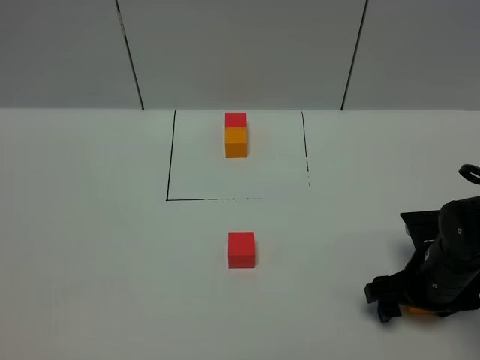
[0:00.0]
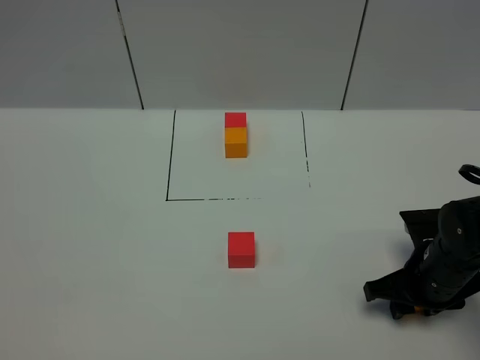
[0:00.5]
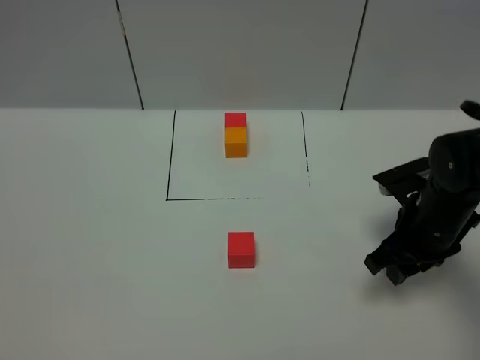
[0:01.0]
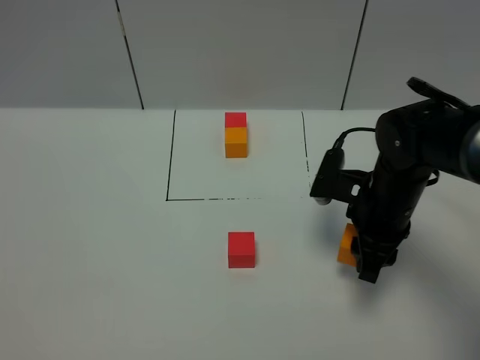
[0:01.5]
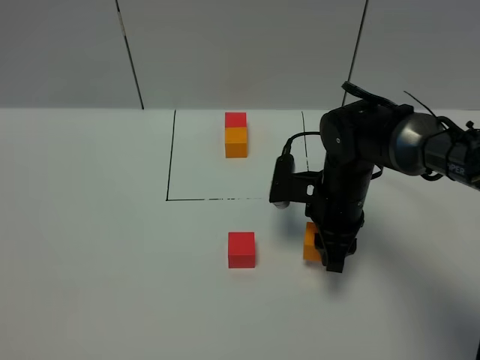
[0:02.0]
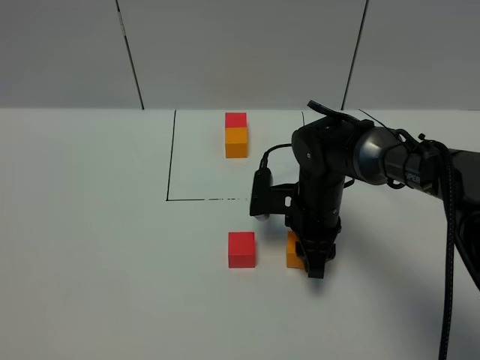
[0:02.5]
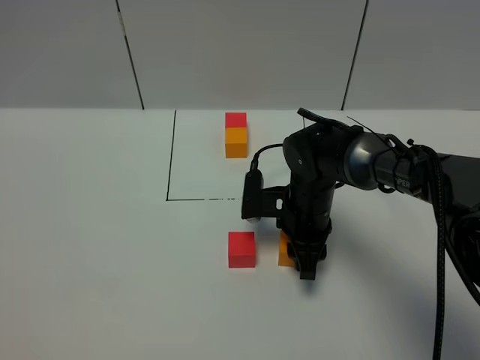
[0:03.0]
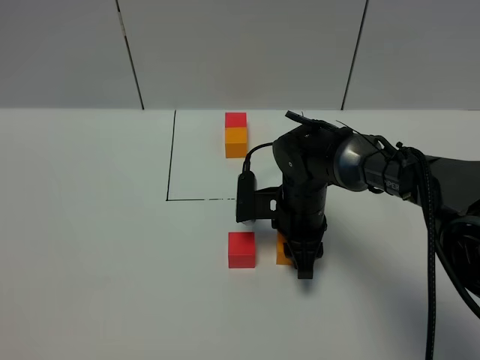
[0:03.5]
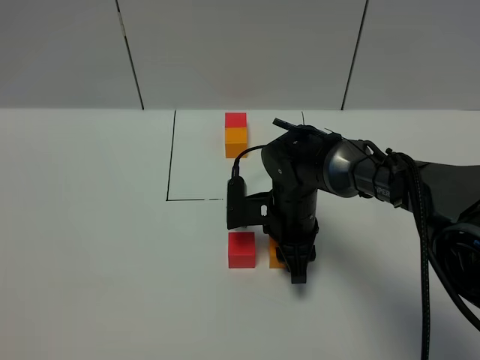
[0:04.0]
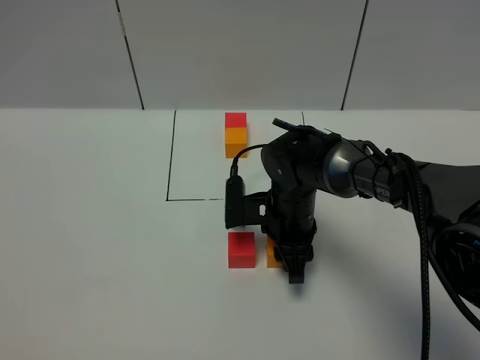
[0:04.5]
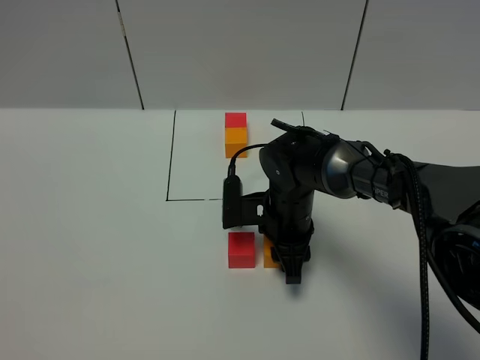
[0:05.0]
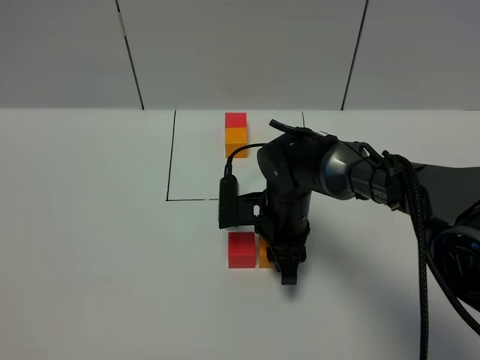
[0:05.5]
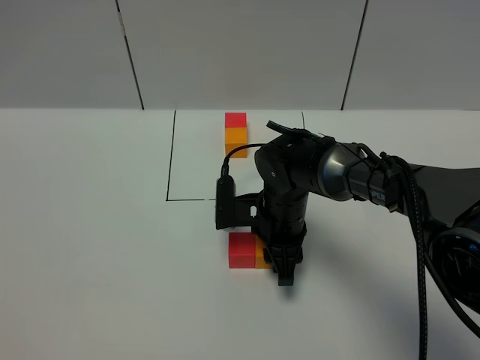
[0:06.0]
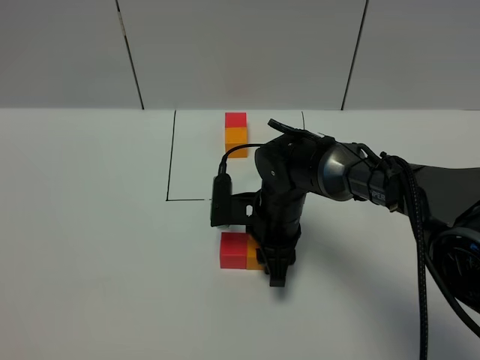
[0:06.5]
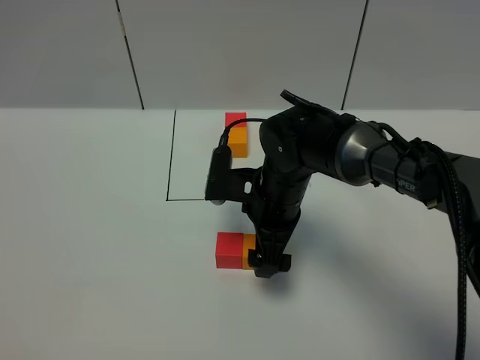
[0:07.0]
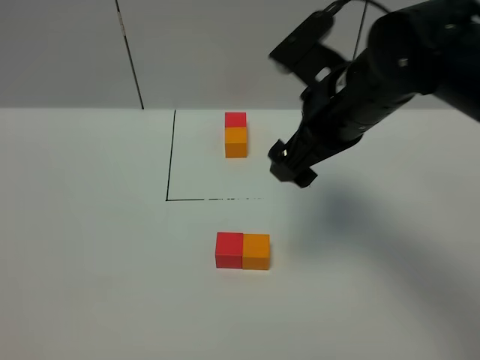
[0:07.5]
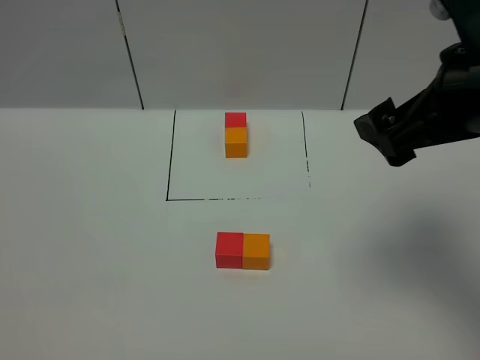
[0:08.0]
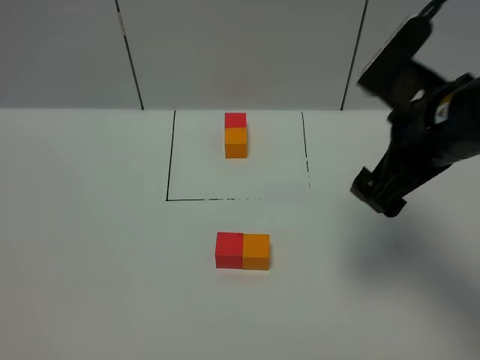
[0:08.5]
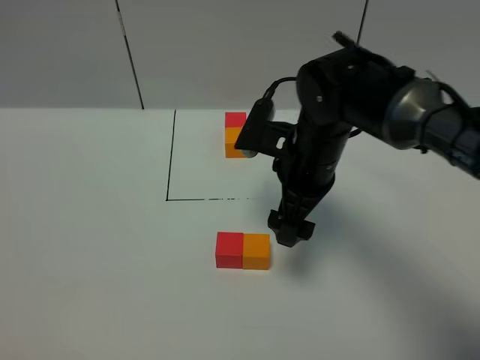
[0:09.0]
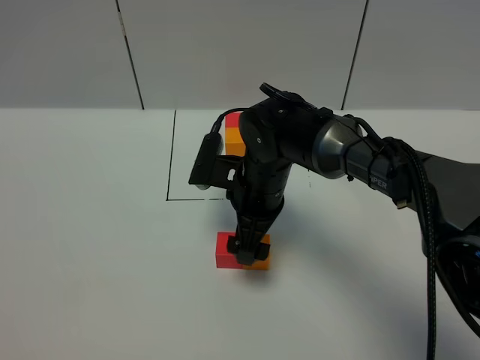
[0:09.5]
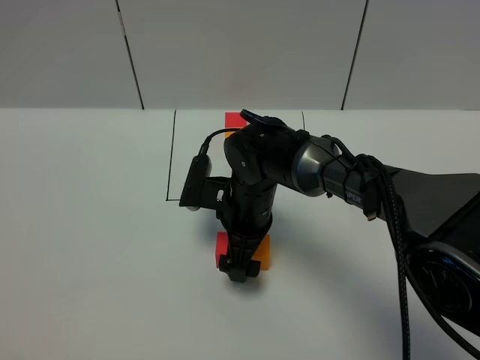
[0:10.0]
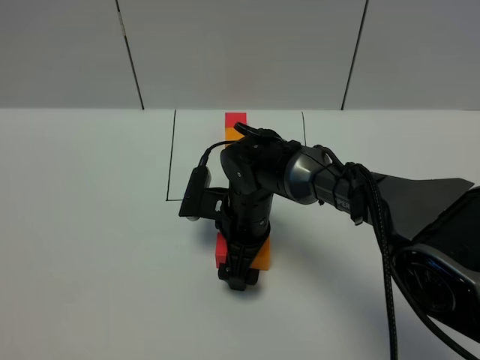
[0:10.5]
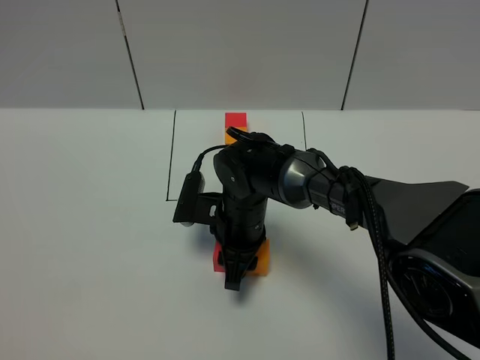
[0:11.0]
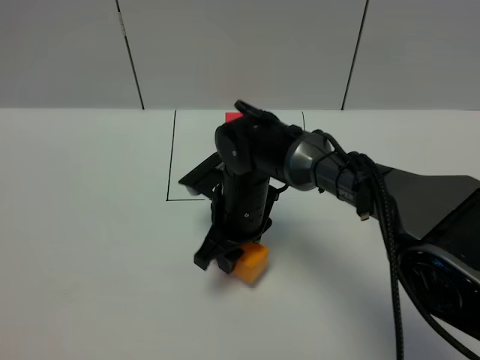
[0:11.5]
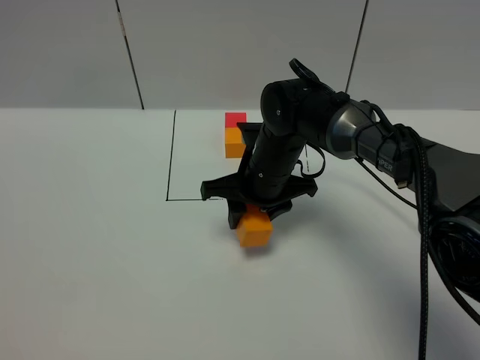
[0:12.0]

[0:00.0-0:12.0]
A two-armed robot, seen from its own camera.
Task of the whole recording: According to the building block template in front, assemble the scattered blocks together.
Step, 0:00.0 to 0:06.5: Put the orange cube on the right of the red cube.
0:00.0 to 0:02.0: The right gripper goes about 15 cm to the left and forward, and closes up.
0:02.0 to 0:04.0: The right gripper shifts about 5 cm to the left.
0:04.0 to 0:06.0: The two grippers keep their place.
0:06.0 to 0:08.0: The right gripper moves upward, to the right and backward, about 35 cm, and opens up.
0:08.0 to 0:10.0: The right gripper goes roughly 35 cm downward, to the left and forward.
0:10.0 to 0:12.0: The right gripper changes place by about 5 cm, and closes.

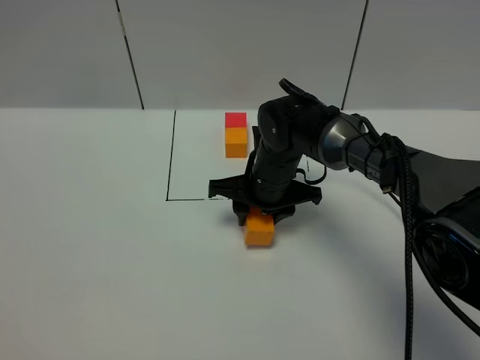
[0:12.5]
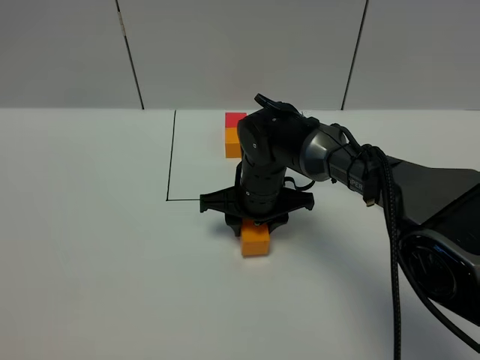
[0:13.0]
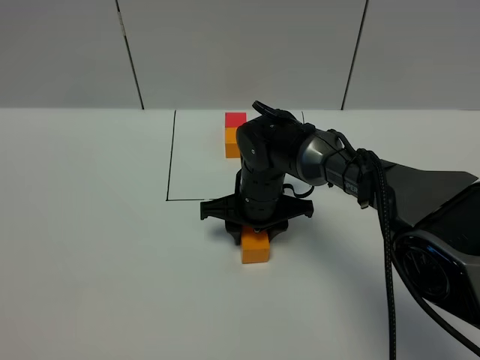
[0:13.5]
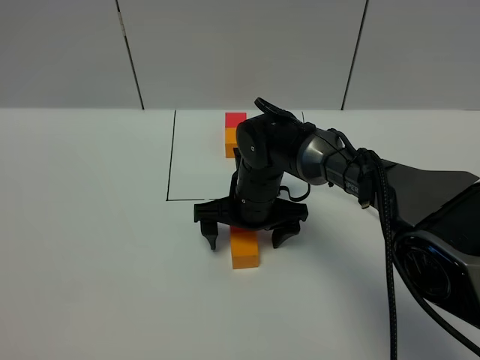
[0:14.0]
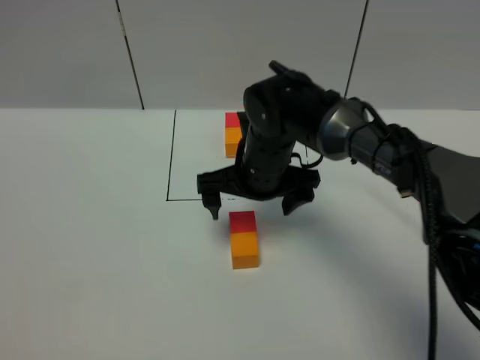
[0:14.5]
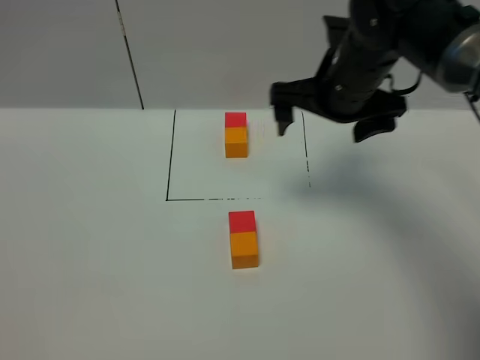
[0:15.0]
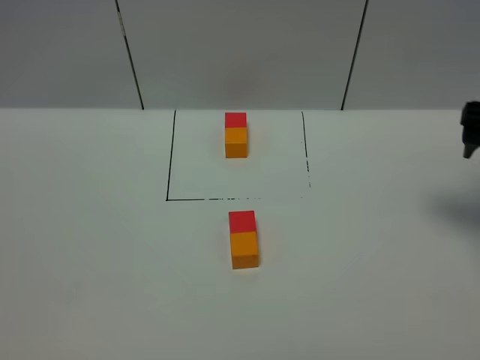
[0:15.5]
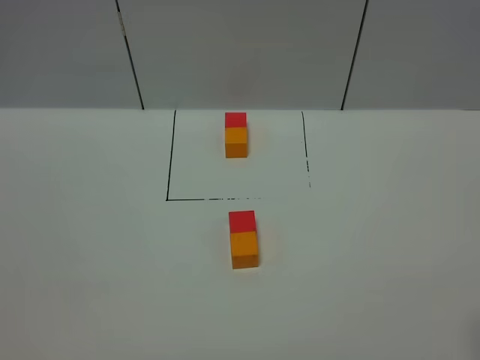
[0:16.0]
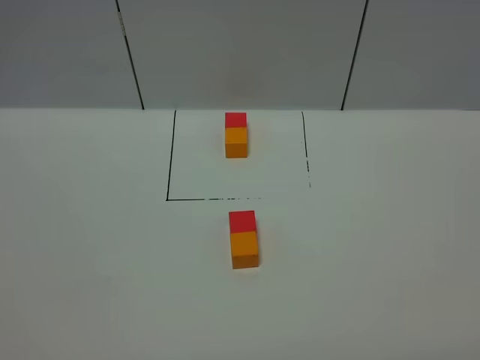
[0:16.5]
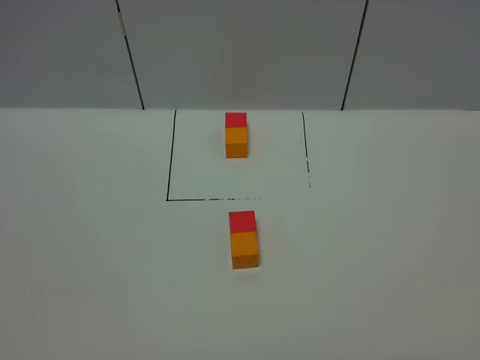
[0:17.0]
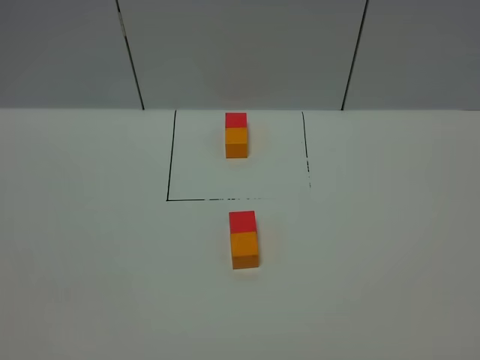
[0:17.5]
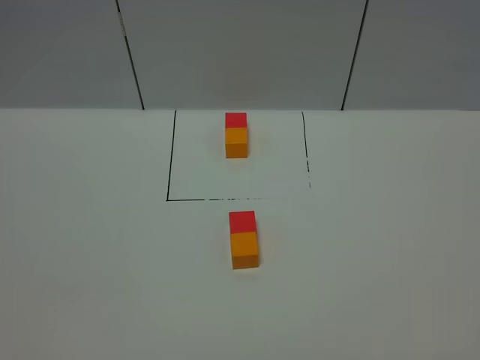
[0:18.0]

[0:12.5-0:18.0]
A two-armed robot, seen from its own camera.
Task of the whole recording: According to the building block template in front, assemble the scattered blocks together.
0:12.5 to 0:14.5: The right gripper shifts some 5 cm upward, and opens.
0:14.5 to 0:16.0: The right gripper is displaced to the right and backward by roughly 40 cm.
